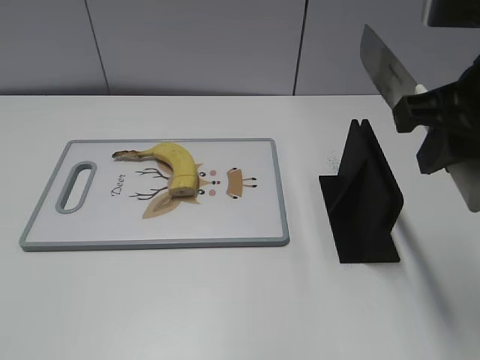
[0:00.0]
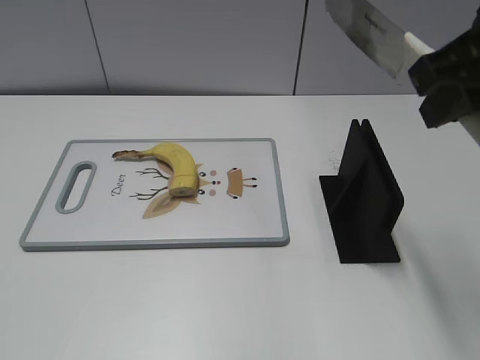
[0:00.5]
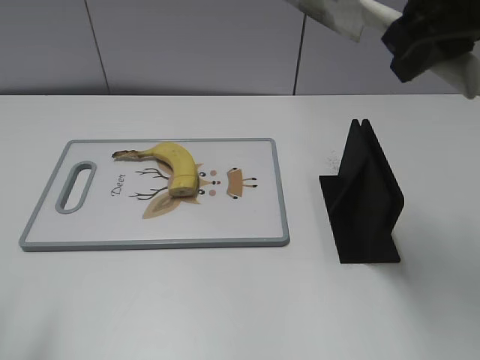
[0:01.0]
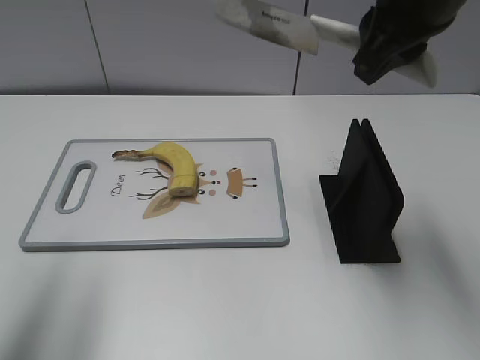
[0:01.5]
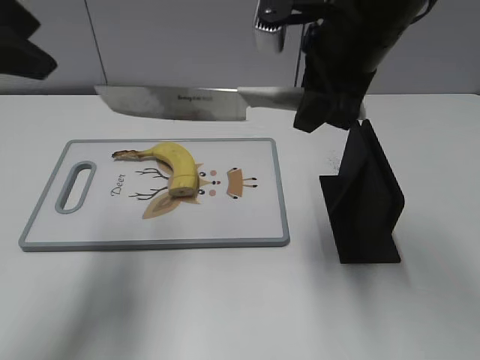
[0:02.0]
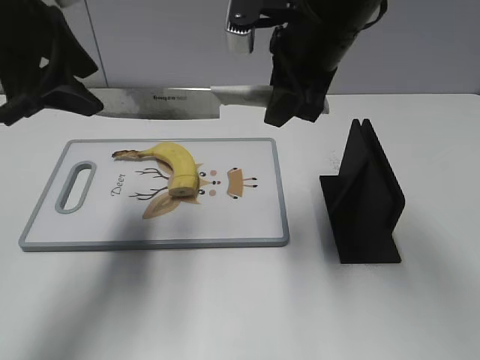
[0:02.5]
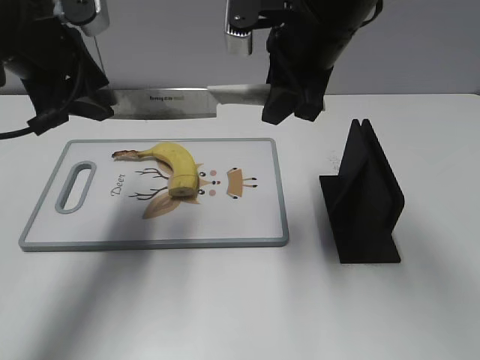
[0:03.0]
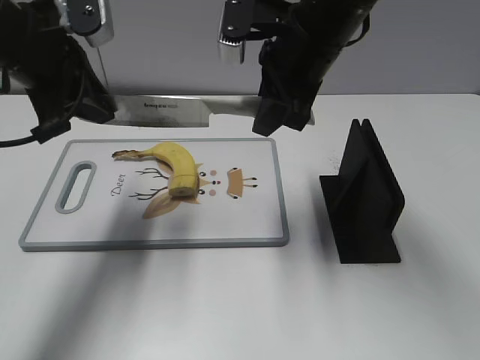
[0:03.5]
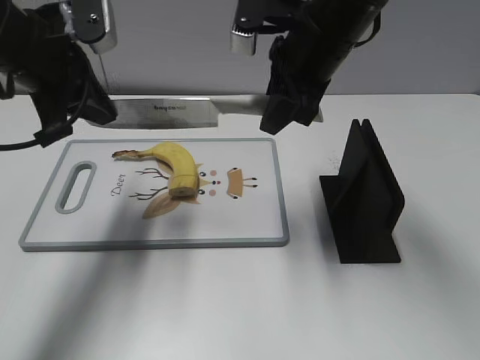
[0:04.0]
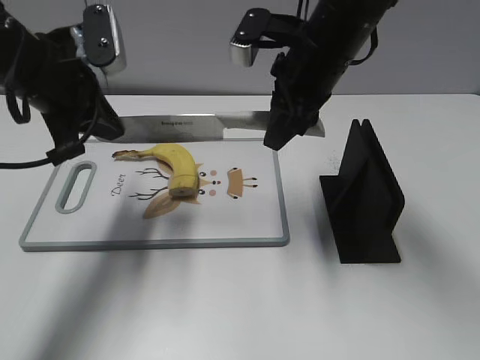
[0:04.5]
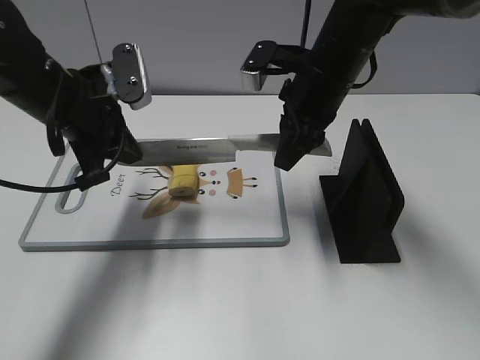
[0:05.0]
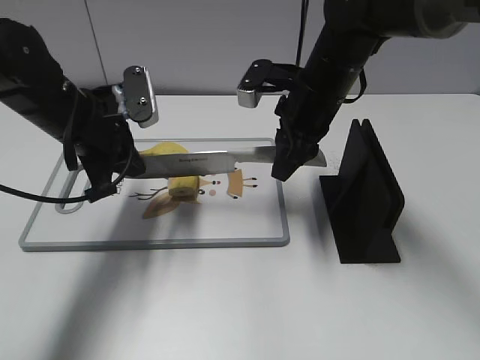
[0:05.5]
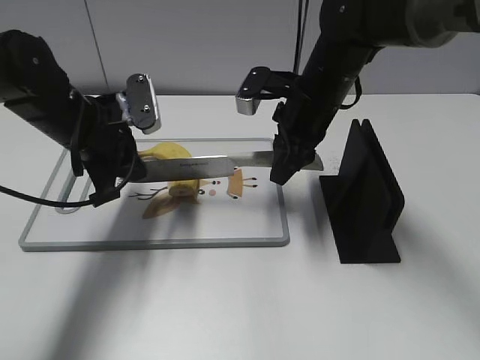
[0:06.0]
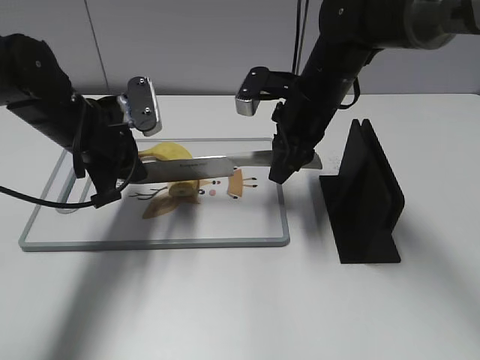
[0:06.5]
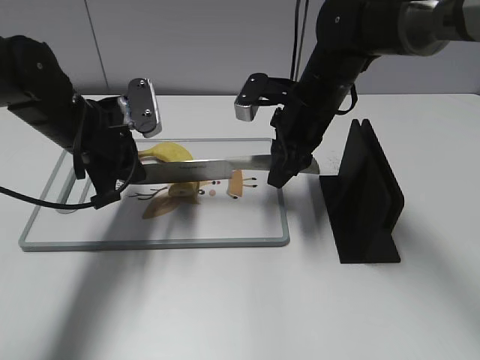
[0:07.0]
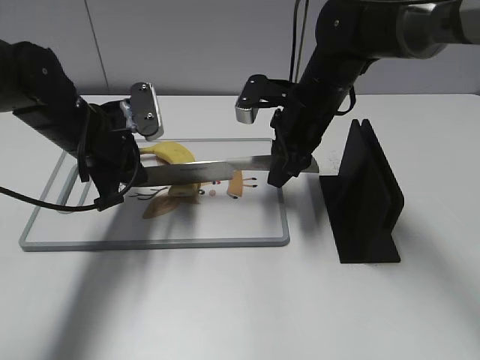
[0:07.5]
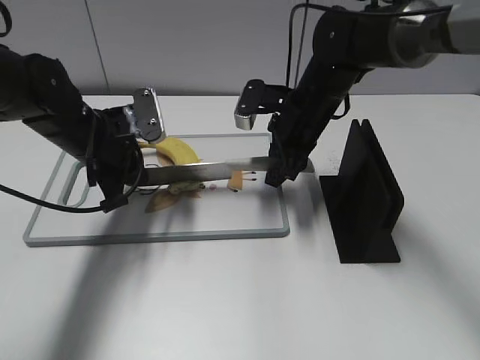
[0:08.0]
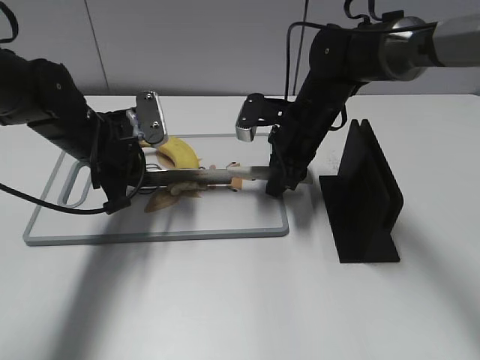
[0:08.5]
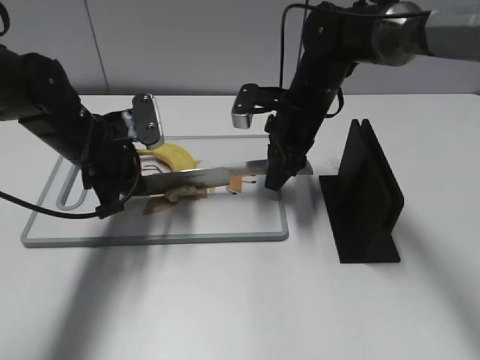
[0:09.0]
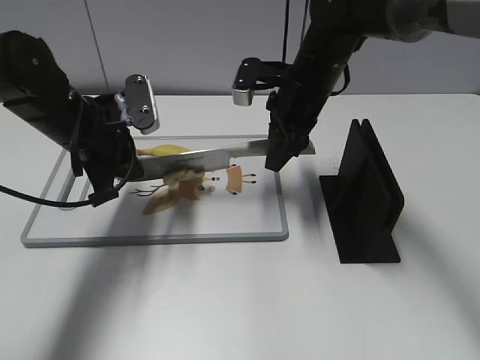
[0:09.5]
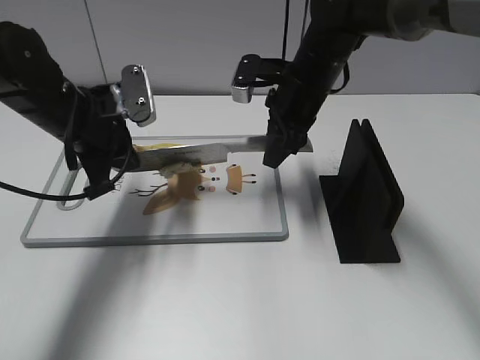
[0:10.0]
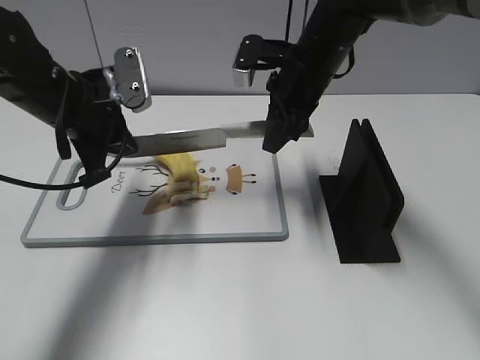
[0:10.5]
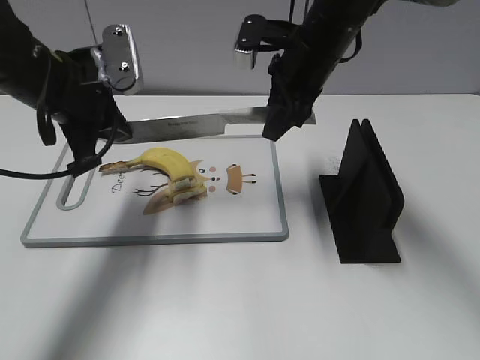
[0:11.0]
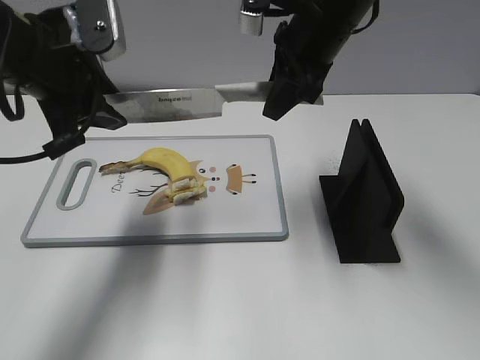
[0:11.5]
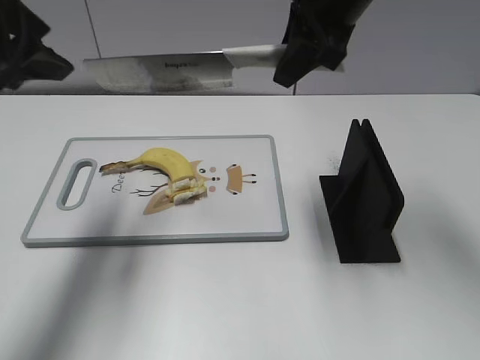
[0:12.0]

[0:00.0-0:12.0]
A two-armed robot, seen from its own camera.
Task of the whole recording: cut banana.
Step, 0:00.5 to 0:07.0: Lift the knife with your right hand.
0:00.0 to 0:02.0: The right gripper travels forward and to the left by approximately 10 cm. The left gripper travels forward by about 25 cm.
0:02.0 to 0:04.0: The right gripper ends up some 5 cm from where it was; the left gripper travels downward and forward by some 15 cm, and closes up.
0:04.0 to 0:06.0: Both grippers travel together downward, roughly 10 cm.
0:06.0 to 0:10.0: There are only small adjustments of the grippers.
0:10.0 to 0:12.0: Both grippers move upward, roughly 15 cm. The left gripper opens up.

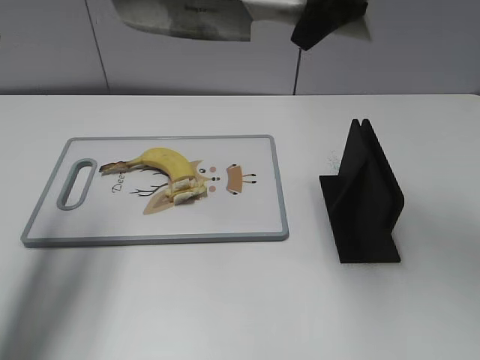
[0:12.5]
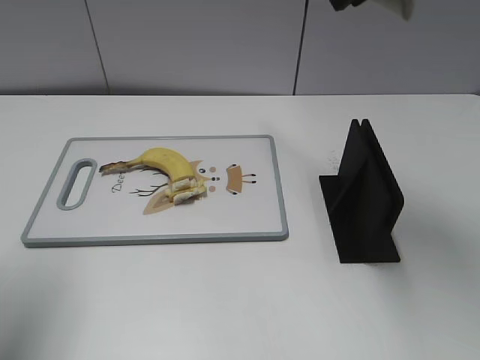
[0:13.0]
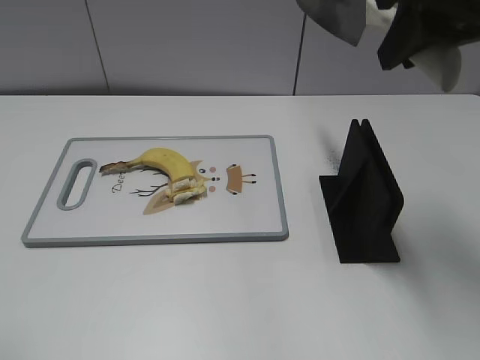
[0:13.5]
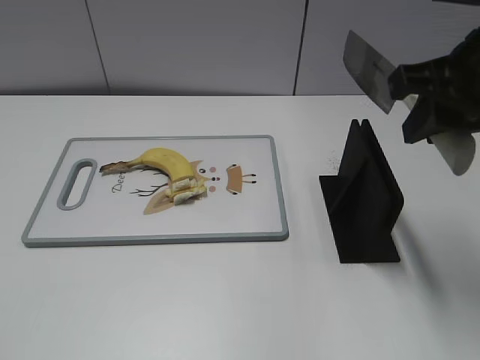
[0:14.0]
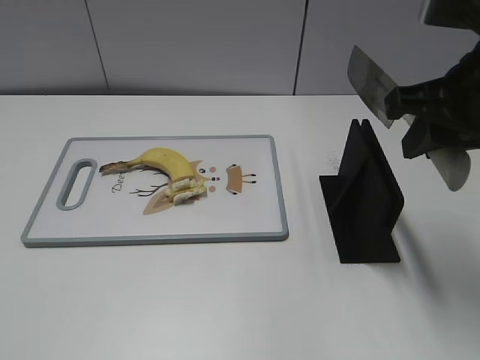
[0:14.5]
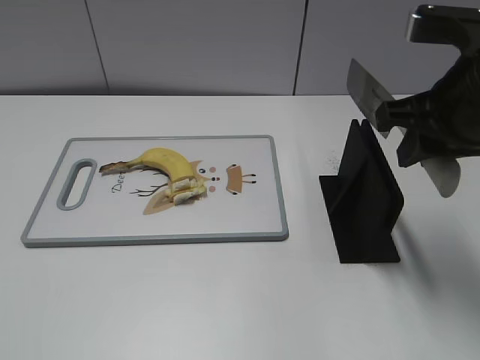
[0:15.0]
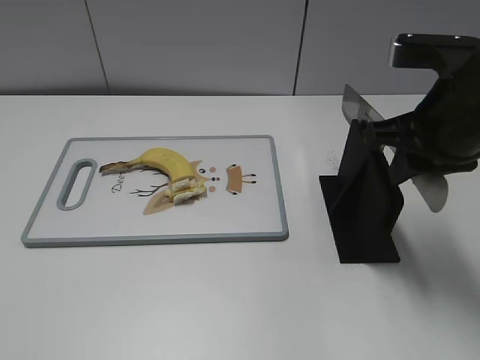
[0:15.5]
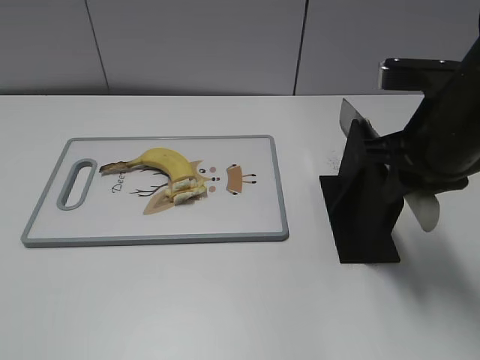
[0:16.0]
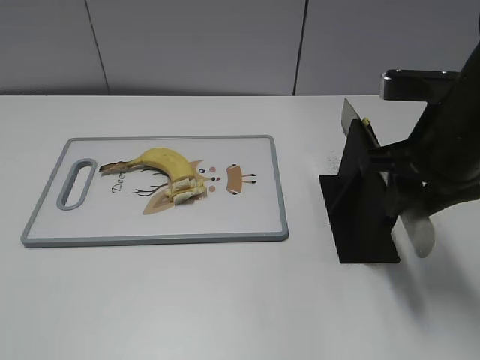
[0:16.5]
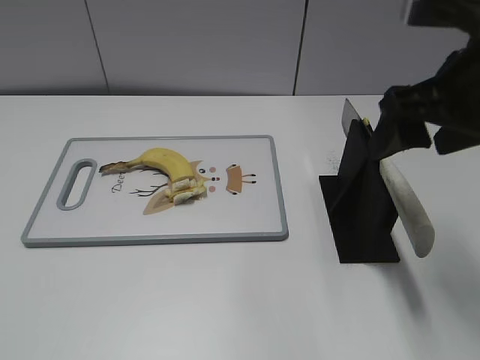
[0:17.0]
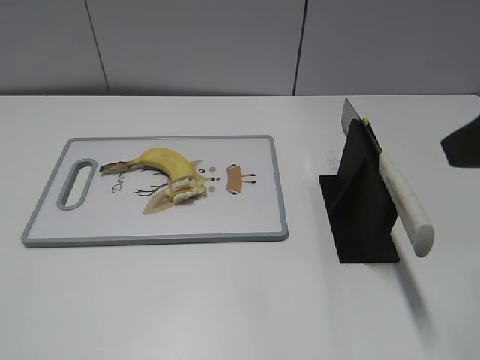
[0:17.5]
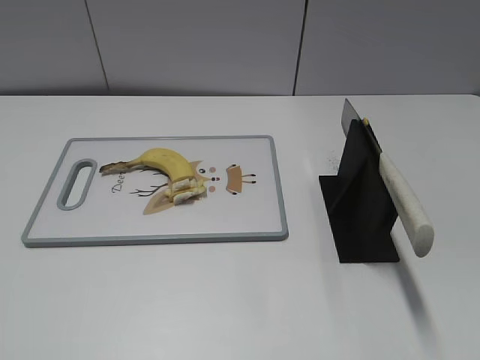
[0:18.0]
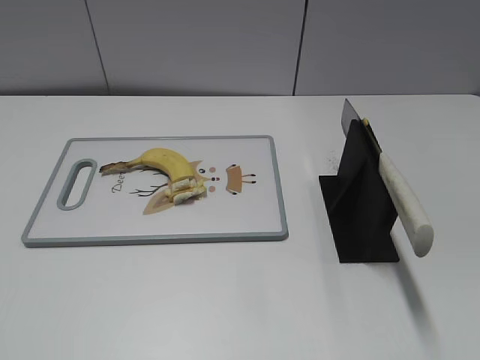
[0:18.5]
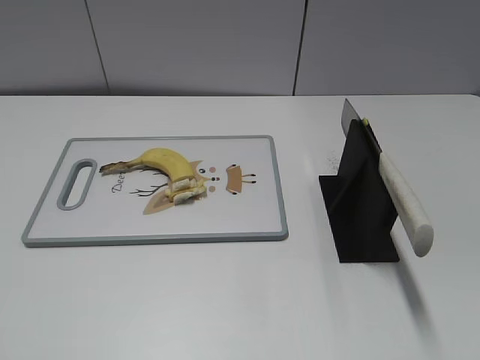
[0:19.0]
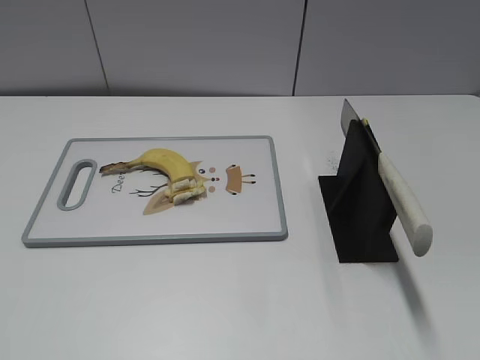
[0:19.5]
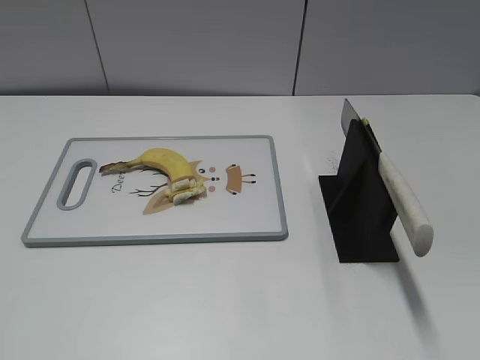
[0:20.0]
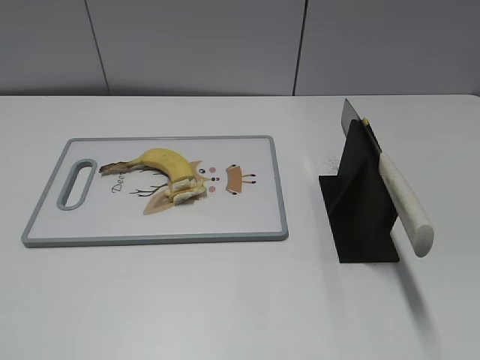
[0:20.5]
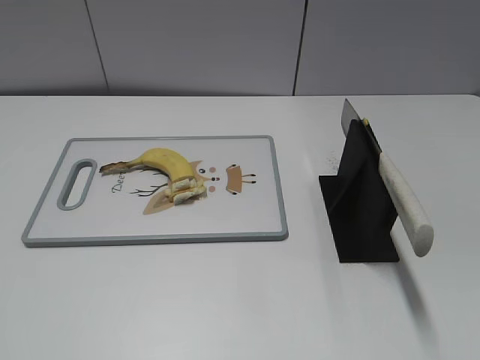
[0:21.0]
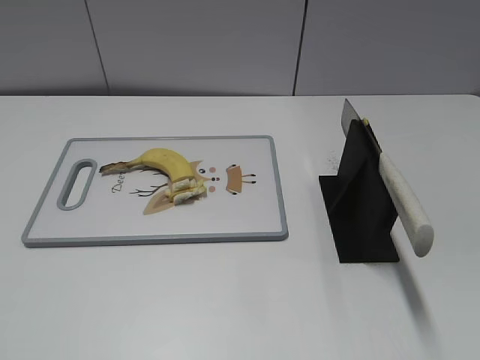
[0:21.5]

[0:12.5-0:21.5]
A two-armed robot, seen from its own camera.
Task of the whole recording: cut banana.
Step, 0:13.5 to 0:16.5: Lift the knife with your right hand.
Step, 0:17.0 to 0:21.5: Place the knife on the storage rack with your right hand.
0:12.5 to 0:14.5: The left gripper moves backward, roughly 30 cm; the right gripper goes some 15 cm backward, to the right and downward.
0:14.5 to 0:17.0: The right gripper opens.
0:17.0 to 0:19.5: The right gripper goes some 30 cm backward and to the right.

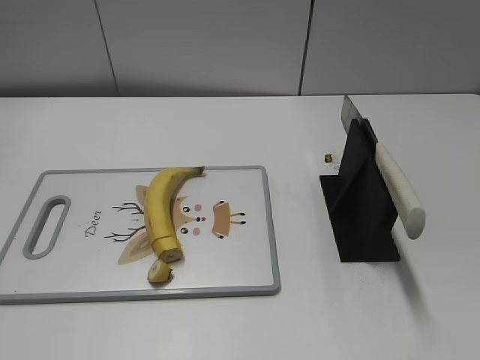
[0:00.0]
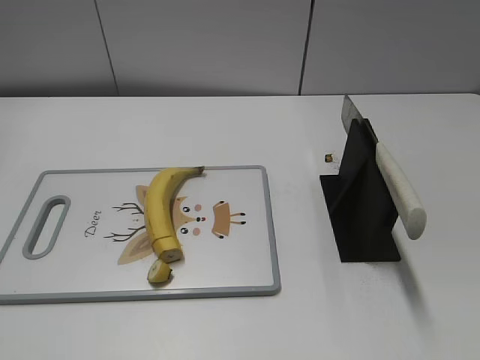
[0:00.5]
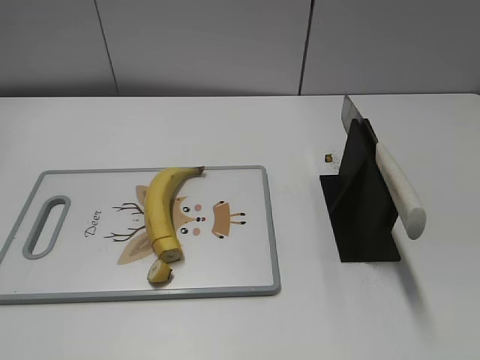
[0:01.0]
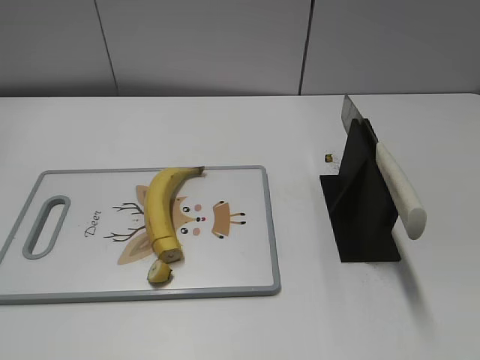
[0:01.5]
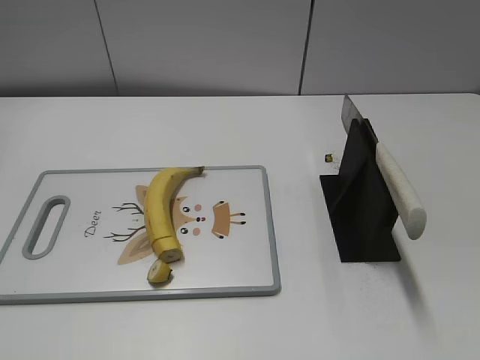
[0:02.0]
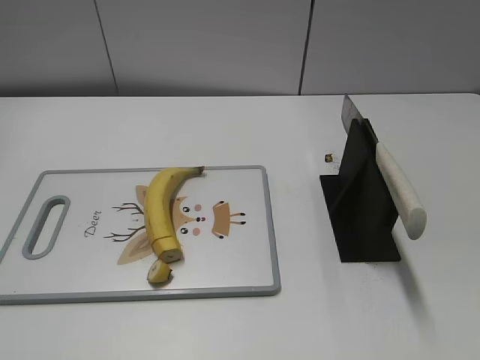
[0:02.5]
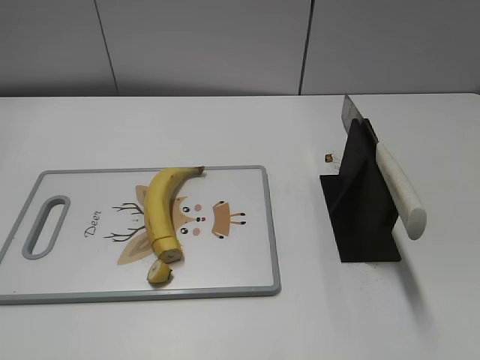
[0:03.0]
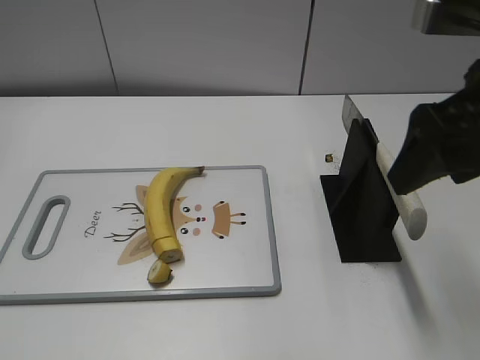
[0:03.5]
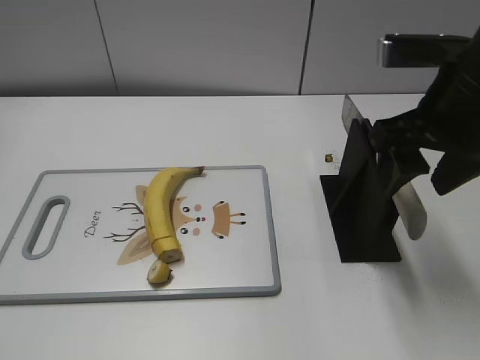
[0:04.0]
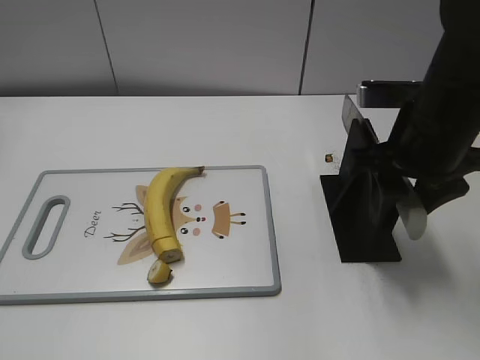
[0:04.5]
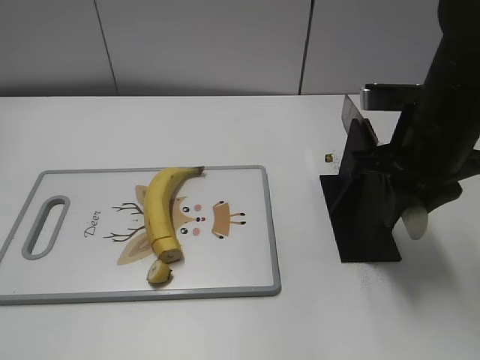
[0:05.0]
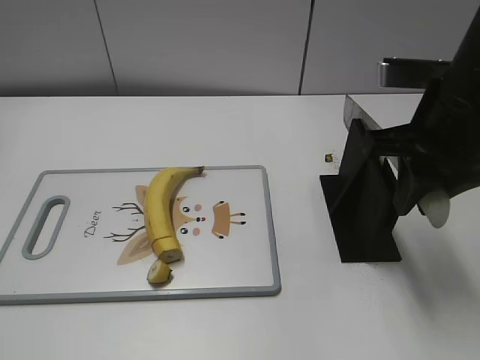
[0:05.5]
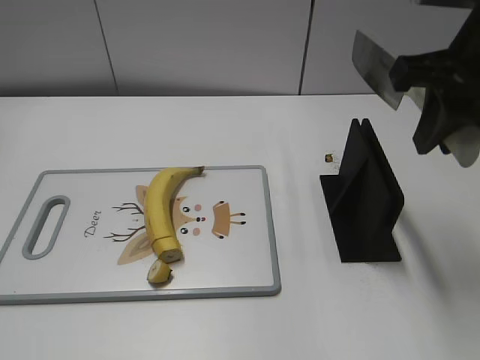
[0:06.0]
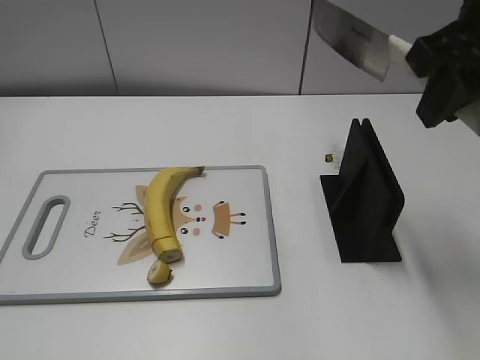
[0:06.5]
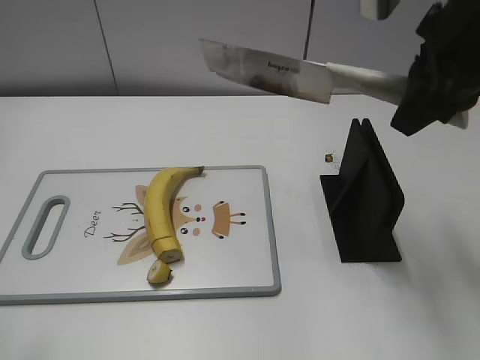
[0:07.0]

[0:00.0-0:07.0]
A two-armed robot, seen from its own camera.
Task of the whole recording: cut banana.
Step, 0:00.0 to 0:06.0: Grab the knife handle with your right hand.
0:02.0 to 0:03.5: The right gripper heads forward and to the left, covering roughly 25 cm.
0:03.5 to 0:05.0: The right gripper moves downward and forward, roughly 10 cm, and closes its fingers.
0:05.0 to 0:07.0: The right gripper shifts approximately 10 cm upward. The left gripper heads forward and upward, covering about 10 cm.
